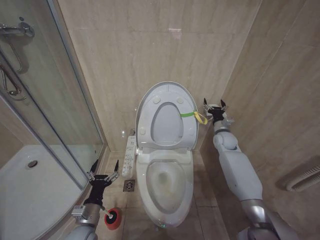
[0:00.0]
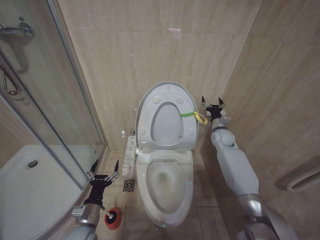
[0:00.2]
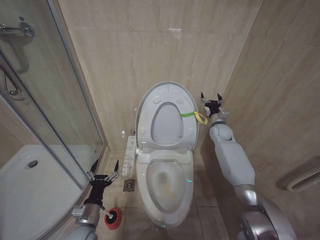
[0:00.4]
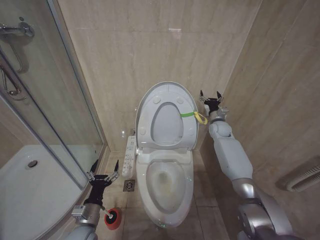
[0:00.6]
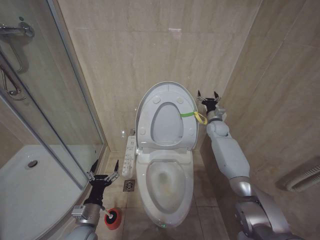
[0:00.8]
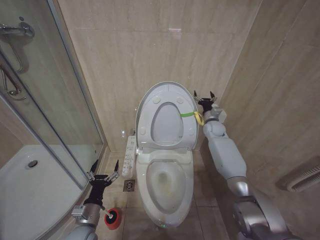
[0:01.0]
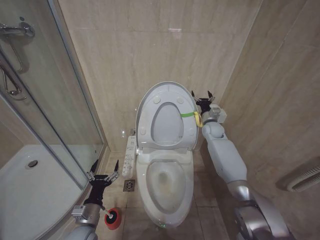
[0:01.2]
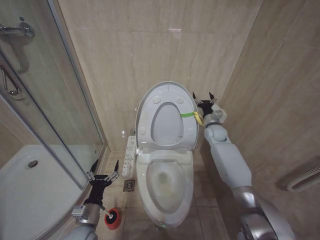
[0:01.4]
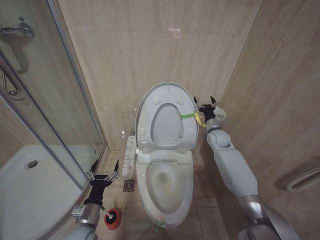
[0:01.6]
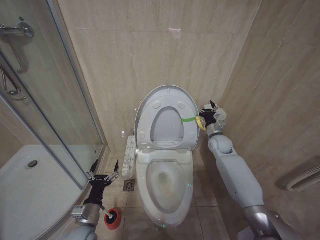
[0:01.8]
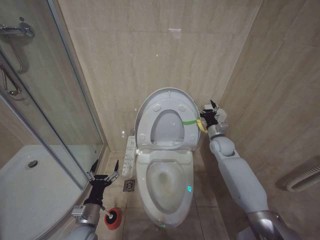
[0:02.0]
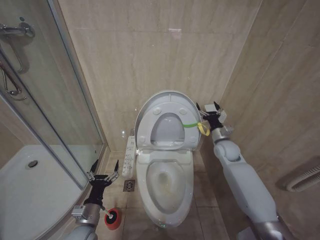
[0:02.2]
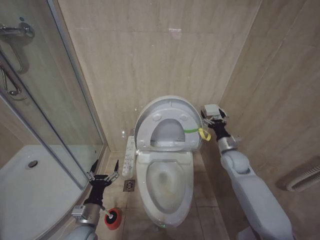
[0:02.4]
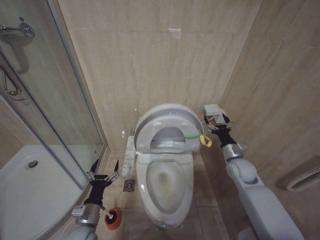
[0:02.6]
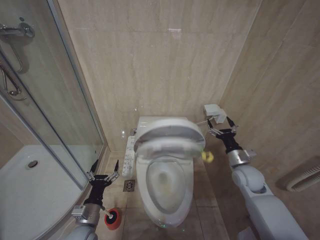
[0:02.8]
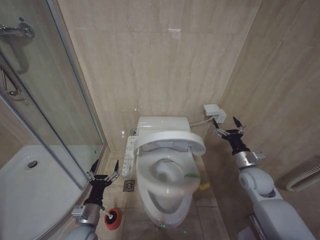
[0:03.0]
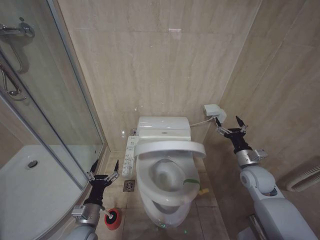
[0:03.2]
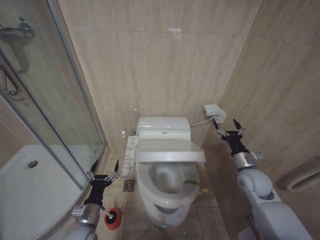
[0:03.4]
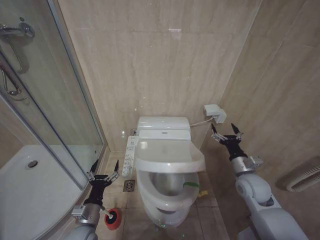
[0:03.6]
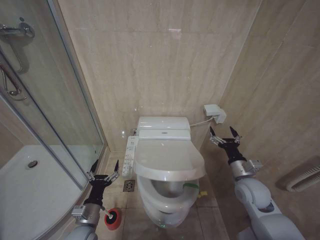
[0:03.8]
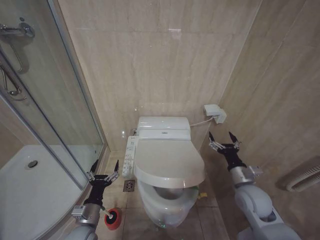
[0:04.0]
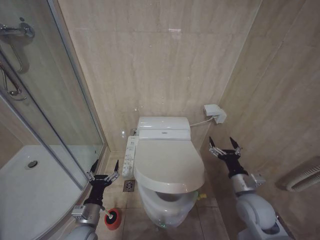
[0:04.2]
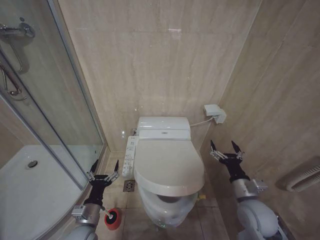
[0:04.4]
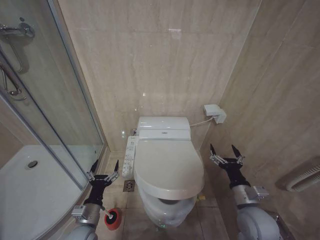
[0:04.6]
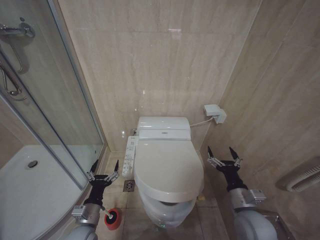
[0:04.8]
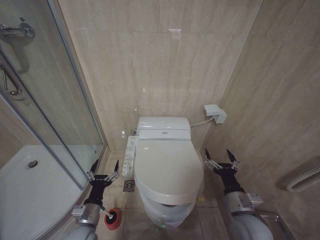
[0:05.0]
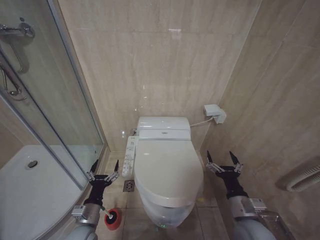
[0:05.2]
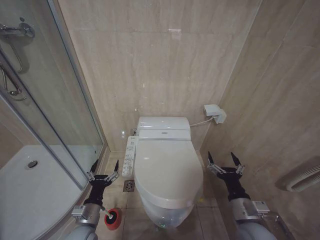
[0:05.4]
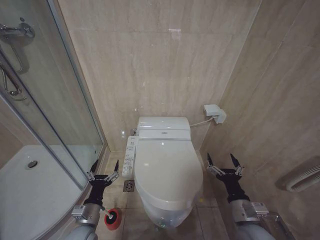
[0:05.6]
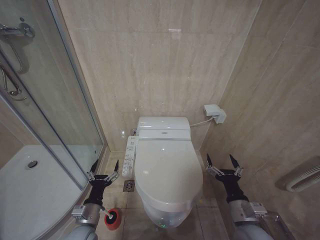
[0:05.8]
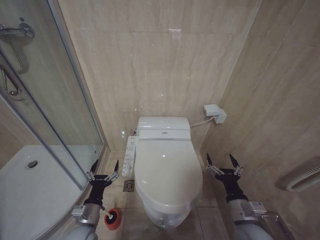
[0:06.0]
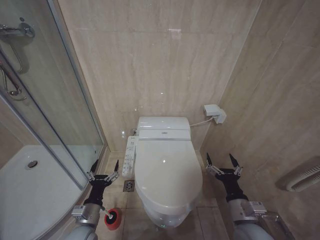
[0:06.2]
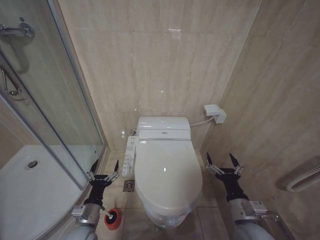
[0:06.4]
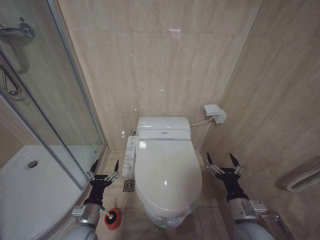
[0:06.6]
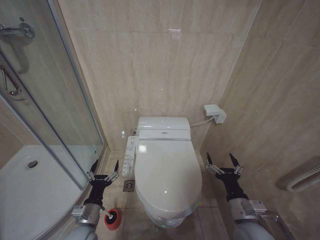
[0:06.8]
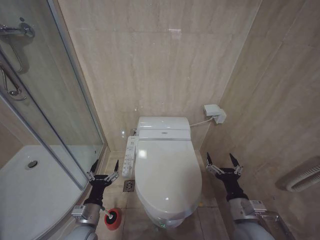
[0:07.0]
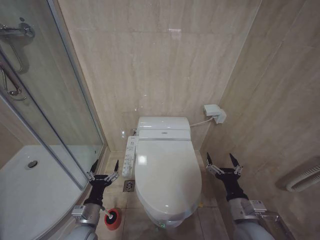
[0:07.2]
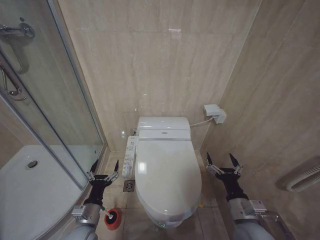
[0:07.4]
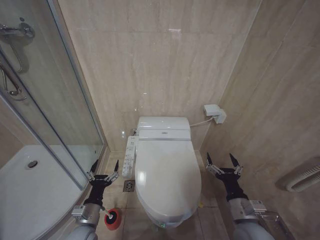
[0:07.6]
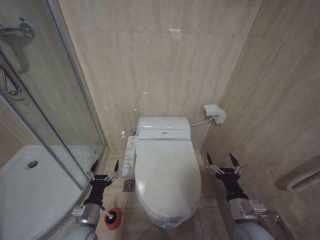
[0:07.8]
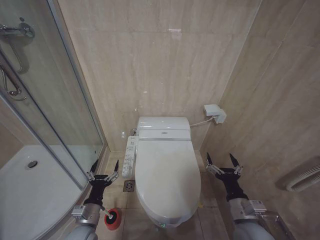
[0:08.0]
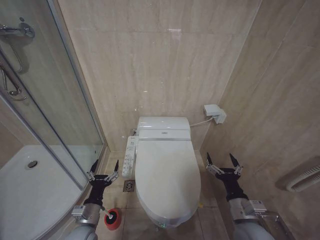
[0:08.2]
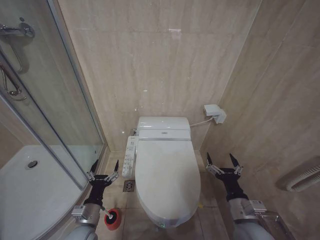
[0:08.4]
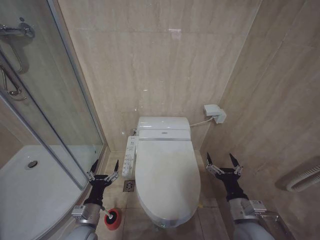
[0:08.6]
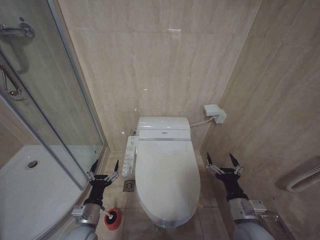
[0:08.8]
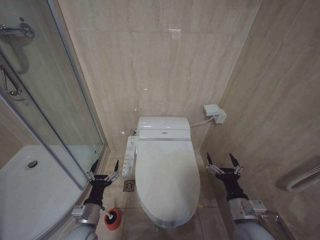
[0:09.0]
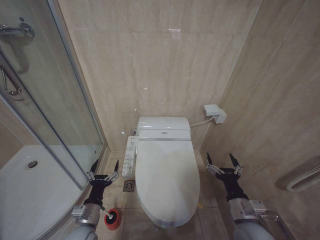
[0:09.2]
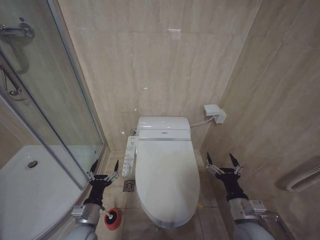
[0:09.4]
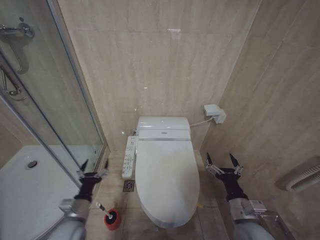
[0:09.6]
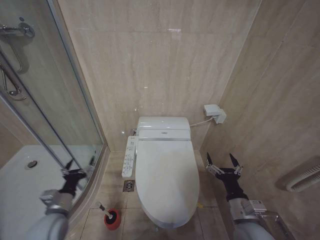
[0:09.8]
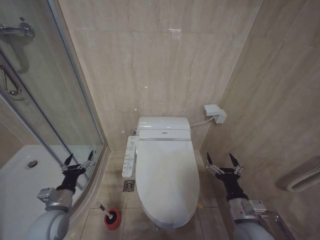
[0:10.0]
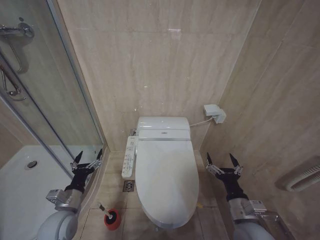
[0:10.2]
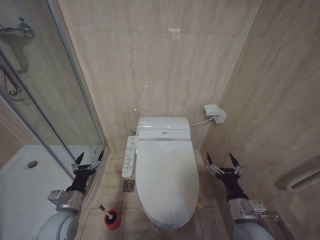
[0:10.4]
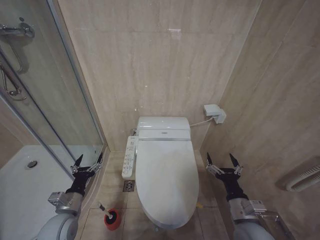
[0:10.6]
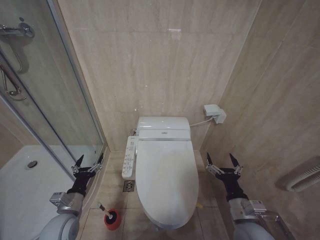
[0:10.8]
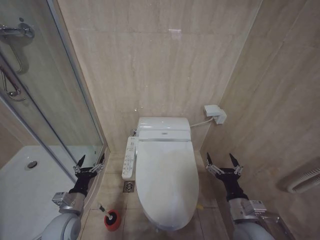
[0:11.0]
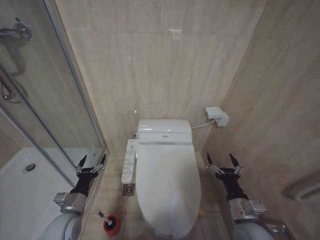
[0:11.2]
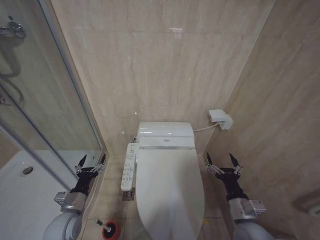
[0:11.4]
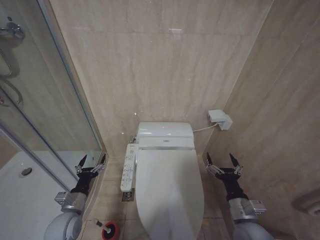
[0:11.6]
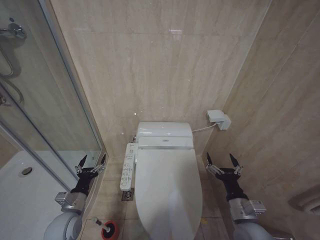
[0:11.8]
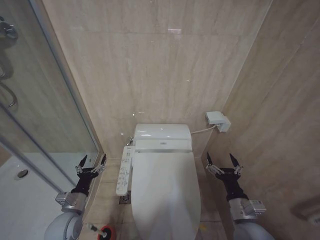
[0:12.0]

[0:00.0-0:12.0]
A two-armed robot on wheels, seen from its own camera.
Task of the whole recording: Open the toilet lid, clean the toilet bowl with a toilet brush, close the toilet lid, and flush.
0:01.6 to 0:03.0: The right gripper heads backward, covering roughly 20 cm.
0:03.0 to 0:04.4: The right gripper moves backward and to the left, roughly 10 cm.
0:04.4 to 0:06.0: The right gripper is displaced backward by approximately 5 cm.
0:06.0 to 0:09.0: Both grippers stay put.
0:09.0 to 0:10.4: The left gripper heads to the left, covering some 5 cm.
0:10.4 to 0:12.0: There are only small adjustments of the grippers.

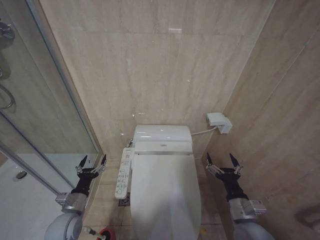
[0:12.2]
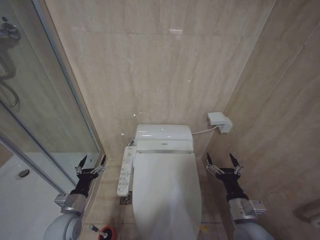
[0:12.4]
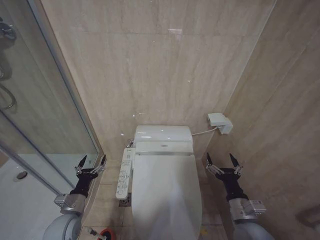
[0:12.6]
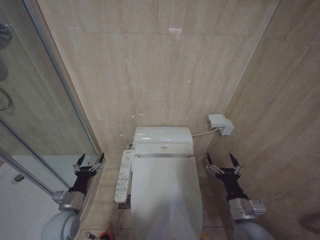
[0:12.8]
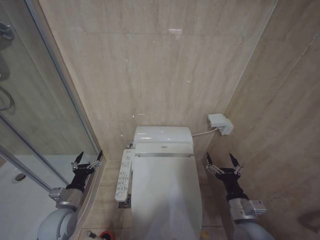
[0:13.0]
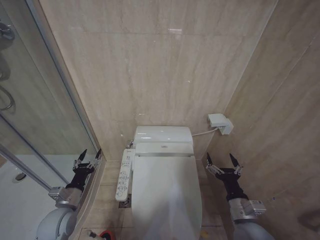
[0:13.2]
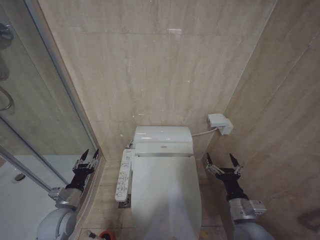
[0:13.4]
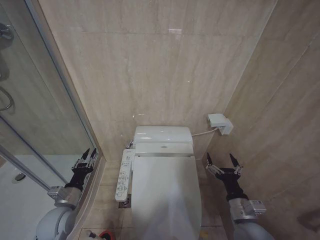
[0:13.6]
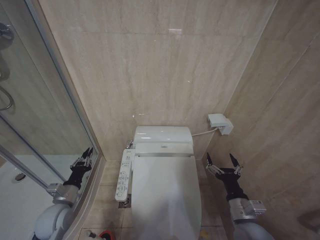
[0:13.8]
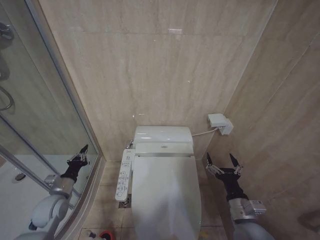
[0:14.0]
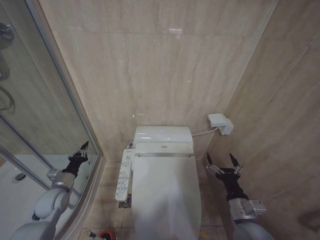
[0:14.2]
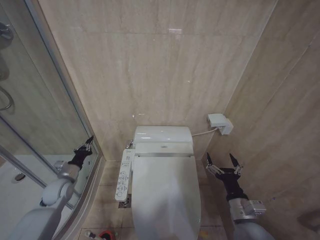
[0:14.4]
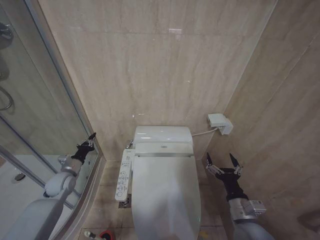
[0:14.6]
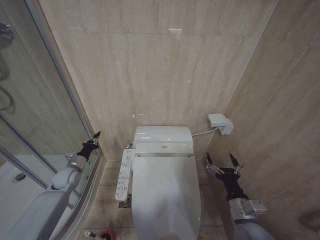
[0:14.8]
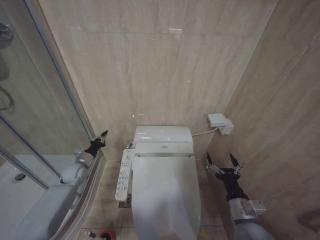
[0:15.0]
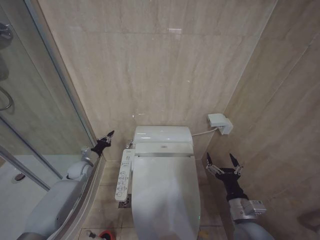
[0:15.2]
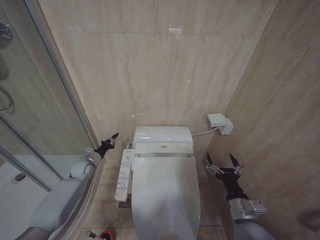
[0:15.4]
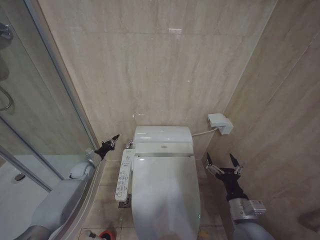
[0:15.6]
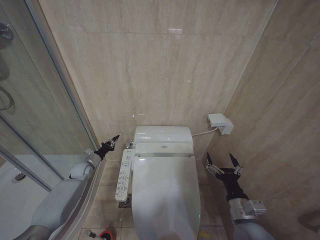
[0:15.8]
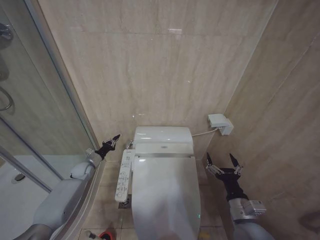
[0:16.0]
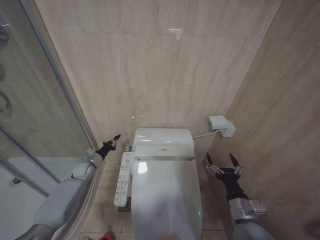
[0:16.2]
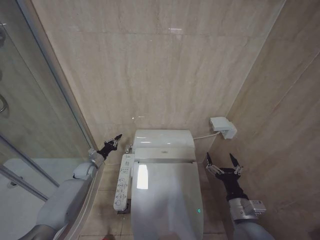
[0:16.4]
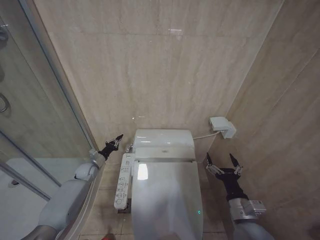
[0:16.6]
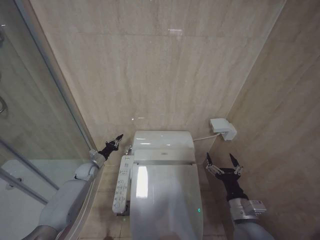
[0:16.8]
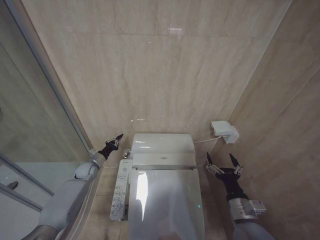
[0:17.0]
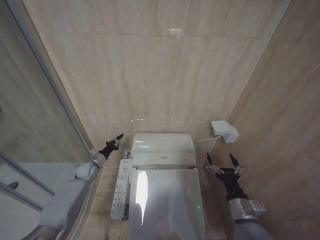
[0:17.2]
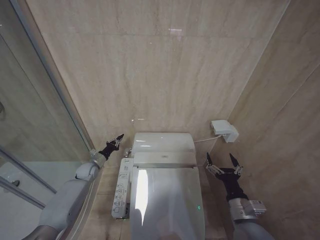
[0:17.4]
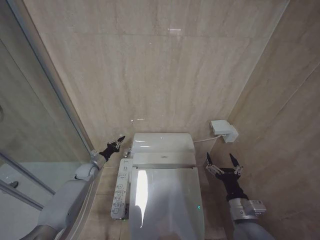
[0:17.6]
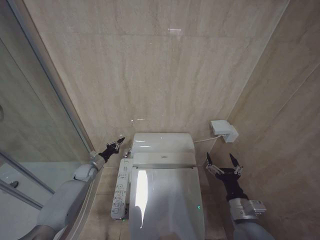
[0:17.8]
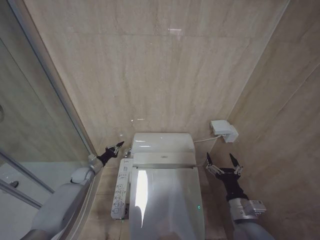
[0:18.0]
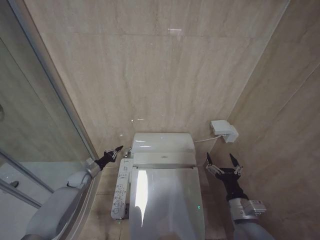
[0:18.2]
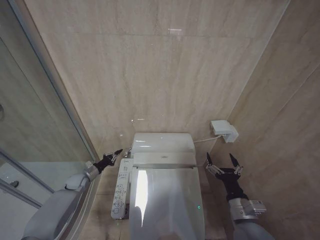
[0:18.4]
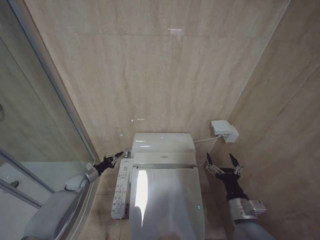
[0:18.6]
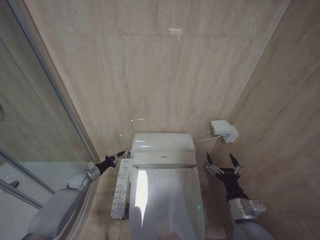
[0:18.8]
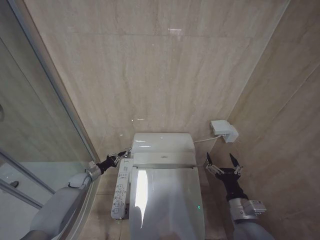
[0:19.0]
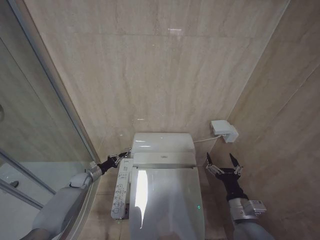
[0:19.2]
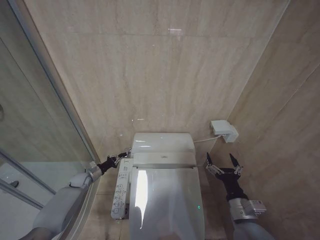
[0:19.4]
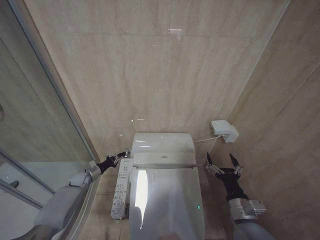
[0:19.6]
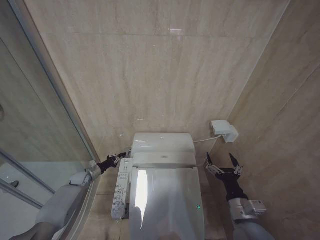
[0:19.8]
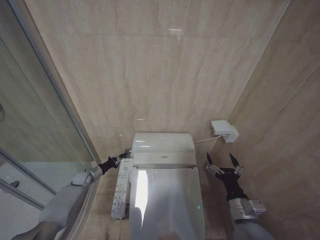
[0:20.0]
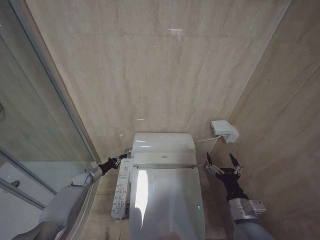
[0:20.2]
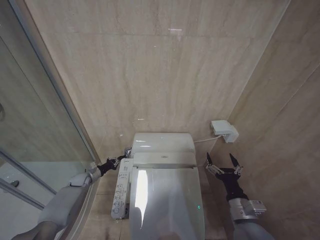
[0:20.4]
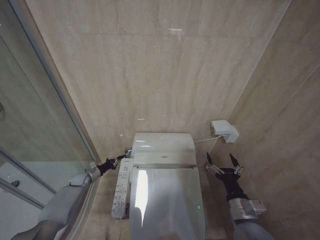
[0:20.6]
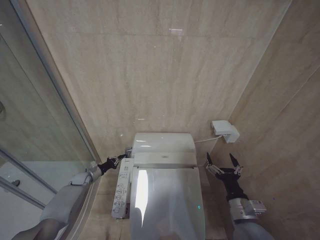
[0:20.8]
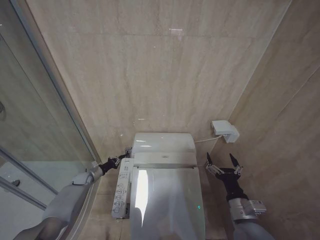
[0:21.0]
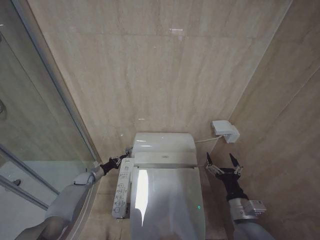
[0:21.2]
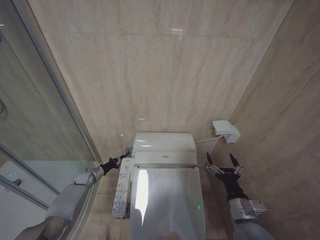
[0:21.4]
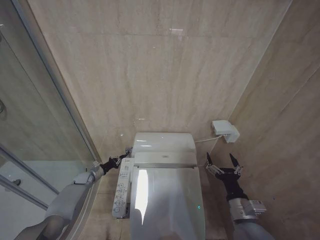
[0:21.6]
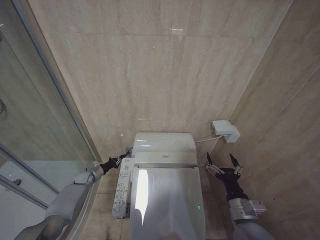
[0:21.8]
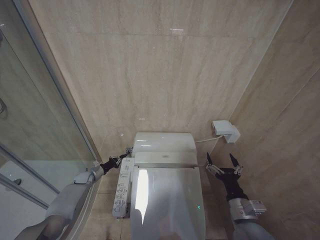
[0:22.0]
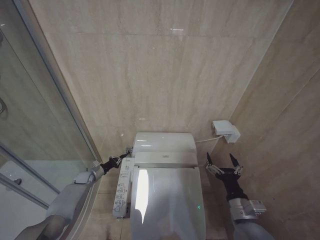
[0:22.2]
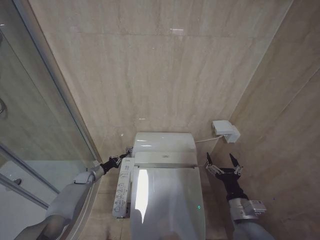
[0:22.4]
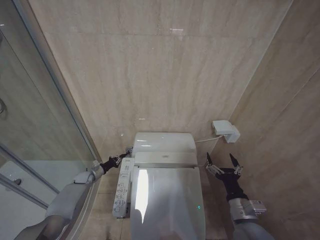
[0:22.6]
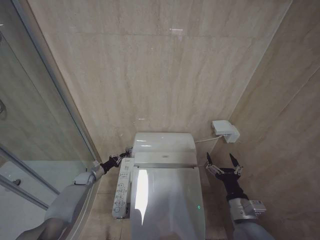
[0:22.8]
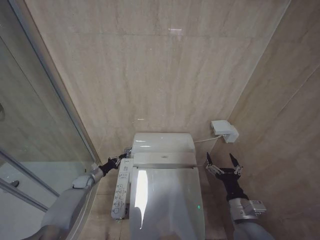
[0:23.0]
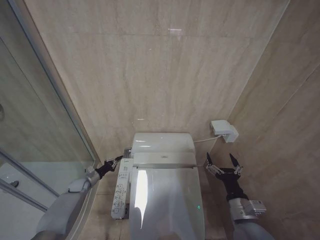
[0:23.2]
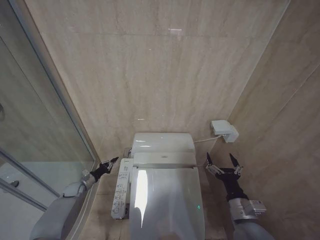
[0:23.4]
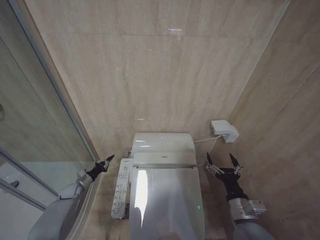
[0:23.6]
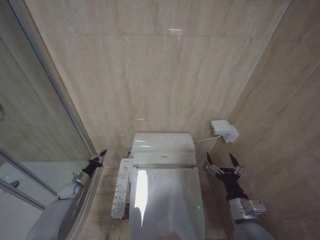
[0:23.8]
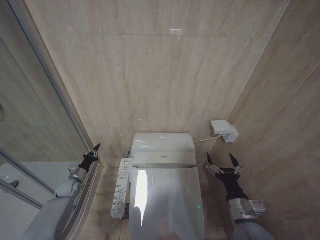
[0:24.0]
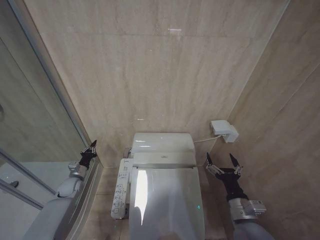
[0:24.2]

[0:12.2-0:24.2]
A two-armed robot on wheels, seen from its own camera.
Task of the whole recording: Open the toilet lid, clean the toilet bowl with a toilet brush, close the toilet lid, and flush.
0:12.2 to 0:13.8: The left gripper closes its fingers.
0:13.8 to 0:15.2: The left gripper heads forward, covering approximately 20 cm.
0:15.2 to 0:18.2: The grippers make only small movements.
0:18.2 to 0:21.2: The grippers move only a little.
0:21.2 to 0:22.6: Both grippers stay about where they are.
0:22.6 to 0:24.2: The left gripper goes roughly 5 cm backward.
